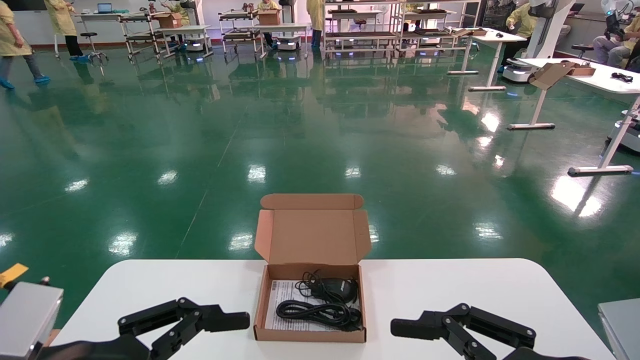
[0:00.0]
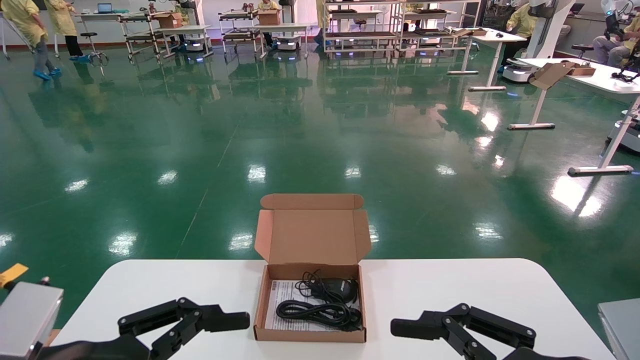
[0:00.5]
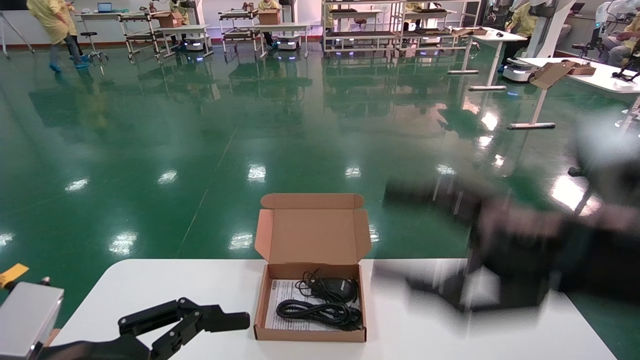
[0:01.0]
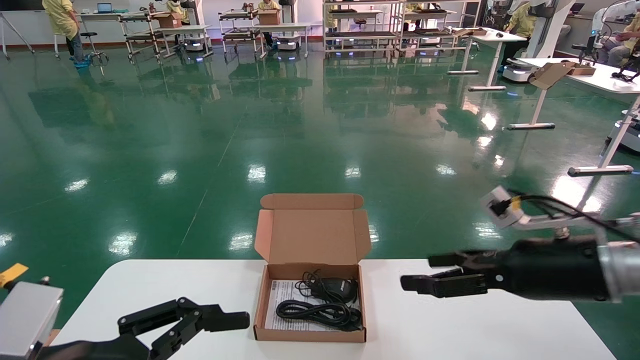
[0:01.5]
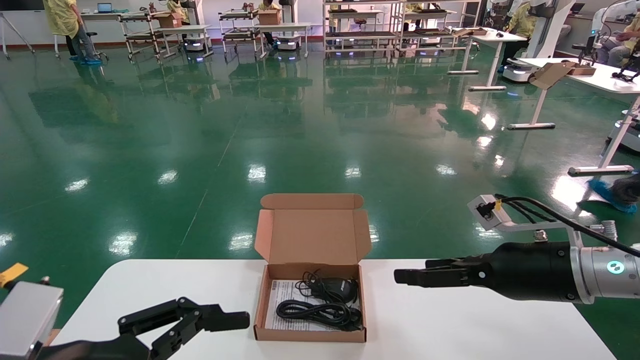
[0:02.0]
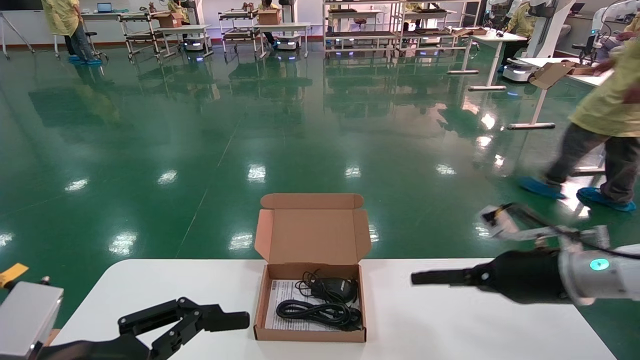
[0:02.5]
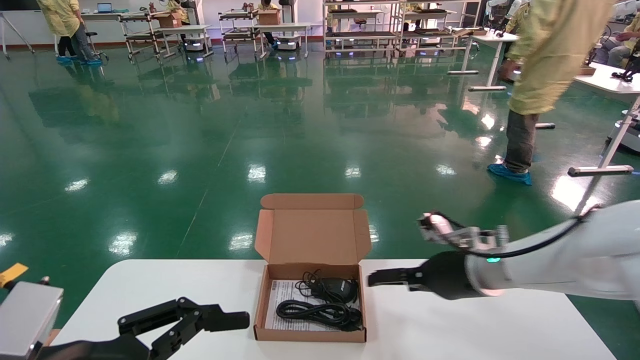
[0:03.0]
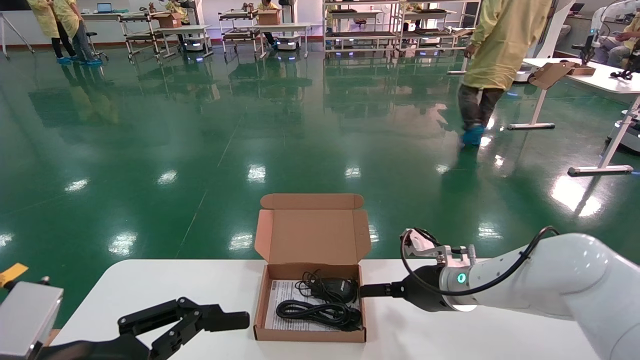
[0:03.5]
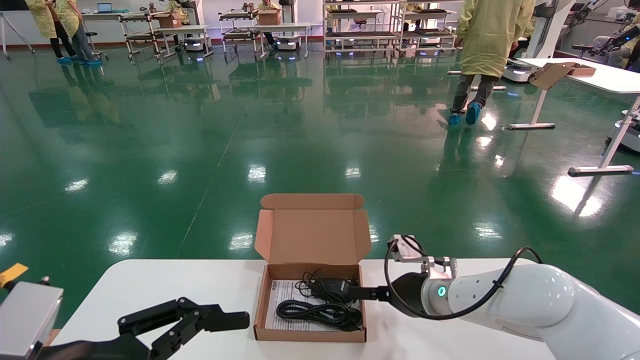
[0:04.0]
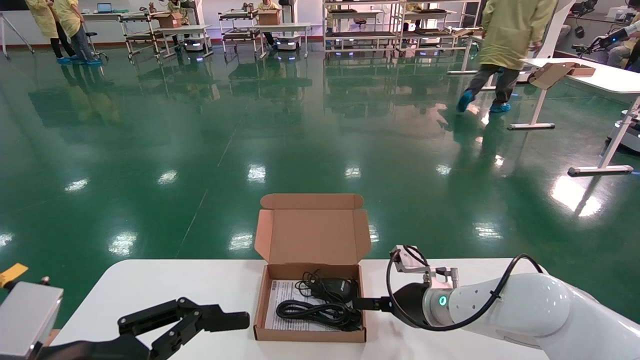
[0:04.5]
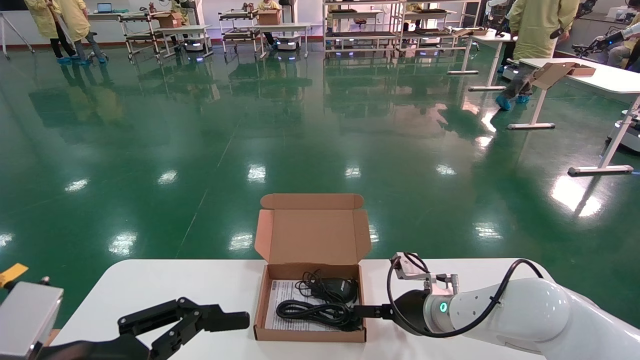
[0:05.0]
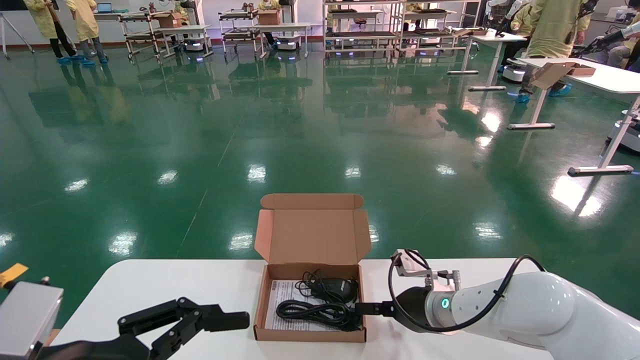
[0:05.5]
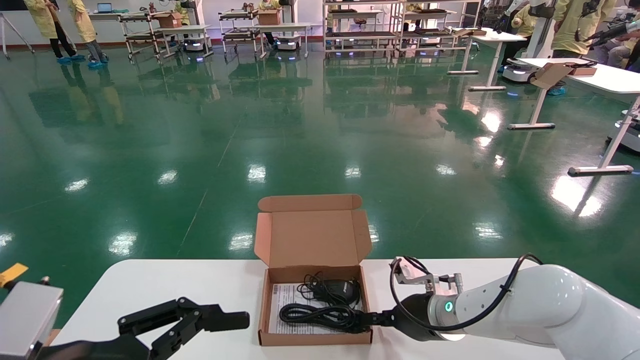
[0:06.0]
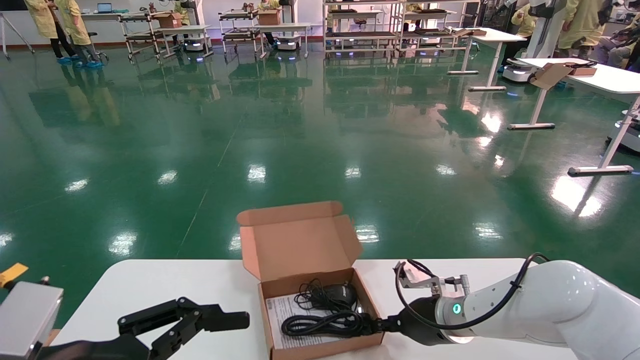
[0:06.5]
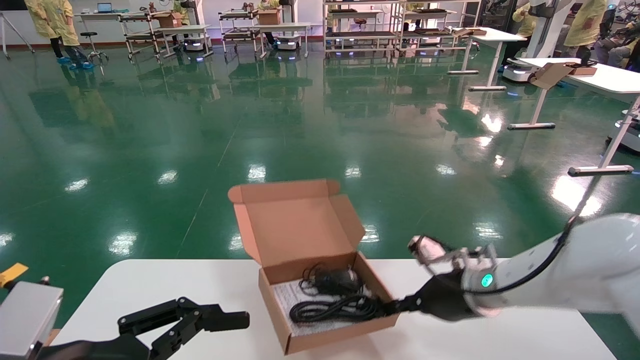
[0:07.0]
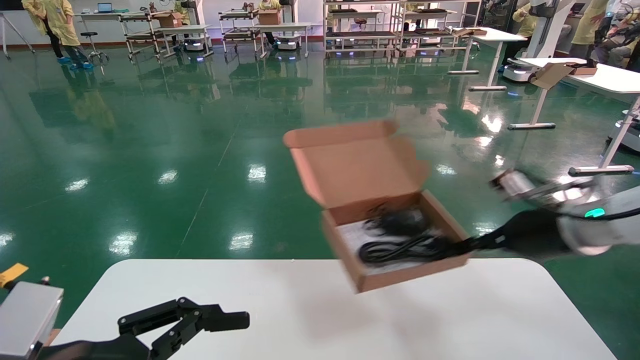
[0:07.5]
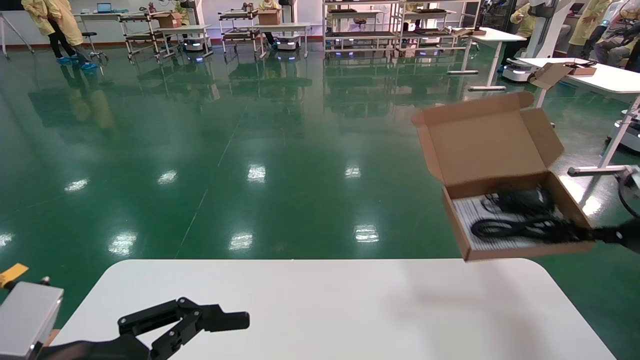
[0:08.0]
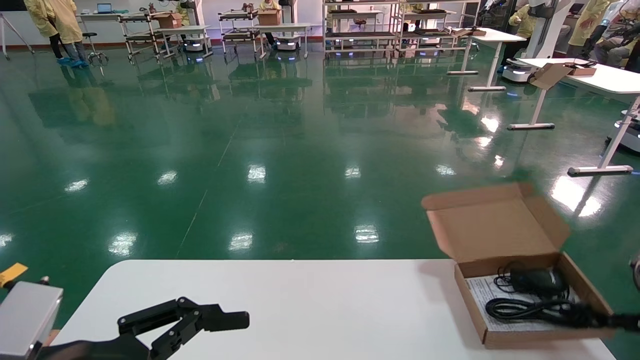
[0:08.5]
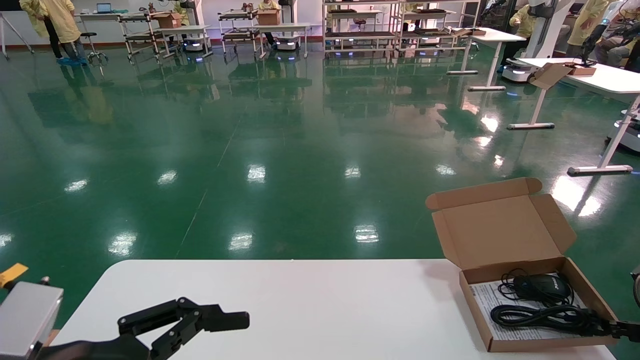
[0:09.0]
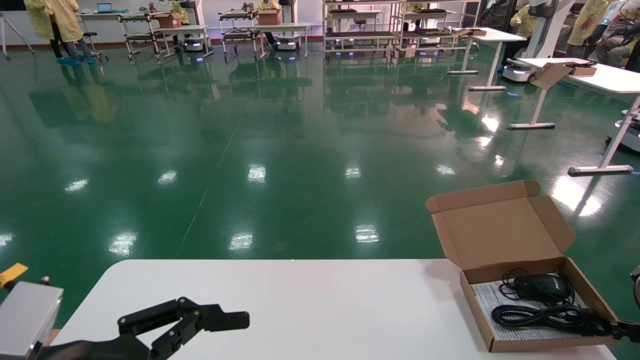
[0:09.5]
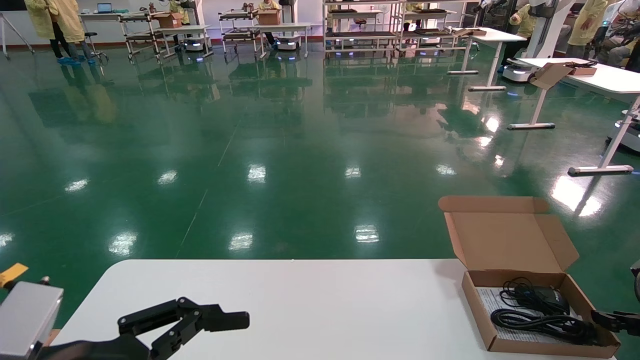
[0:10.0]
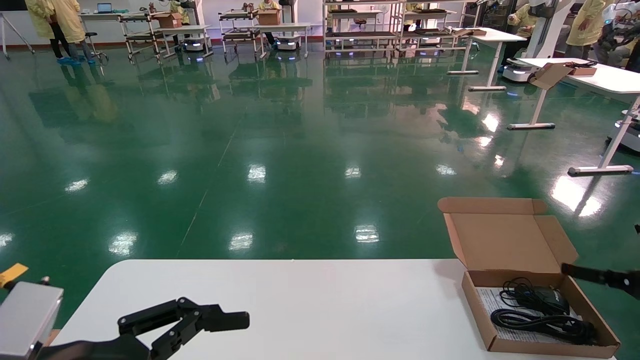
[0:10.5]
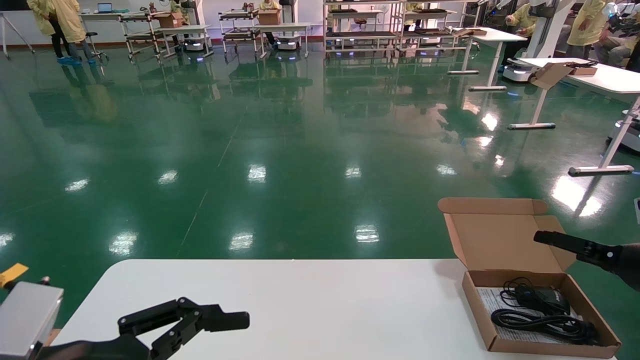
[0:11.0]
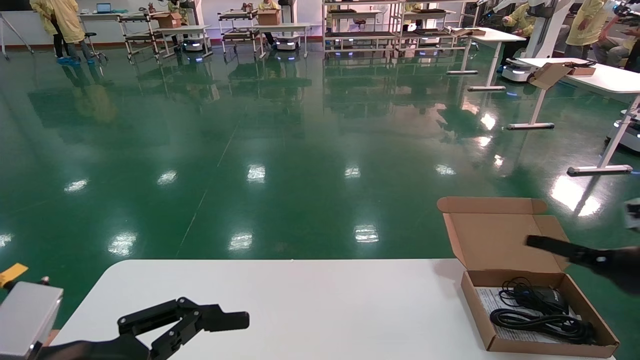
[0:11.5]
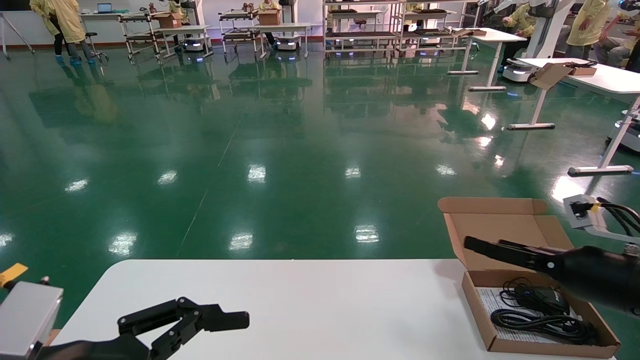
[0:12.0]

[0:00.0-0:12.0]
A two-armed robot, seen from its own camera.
Task of the whole recording: move the position of the storage box with accessories on the table.
Step, 0:01.0 to 0:06.5: Grab and pick up the open mouse box from the accessory packaging area.
Step, 0:07.0 to 0:09.5: Place the open mouse box onto the operation table.
0:00.0 to 0:02.0: The right gripper heads forward, covering roughly 20 cm.
0:02.0 to 0:04.0: The right gripper goes approximately 20 cm to the left, forward and downward.
0:04.0 to 0:06.0: The right gripper closes up.
0:06.0 to 0:08.0: The right gripper goes approximately 30 cm to the right and upward, and closes.
0:08.0 to 0:10.0: The right gripper heads downward and to the right, covering roughly 15 cm.
0:10.0 to 0:12.0: The right gripper travels to the left and upward by some 15 cm, and opens its fingers.

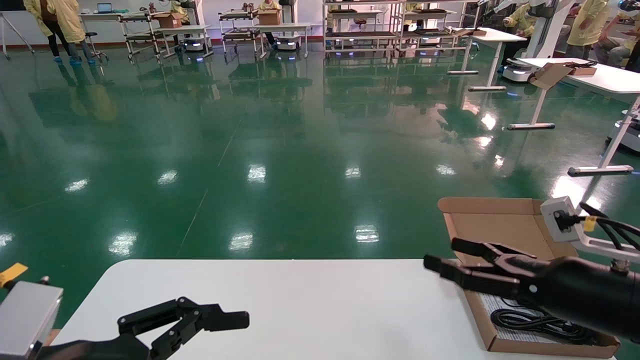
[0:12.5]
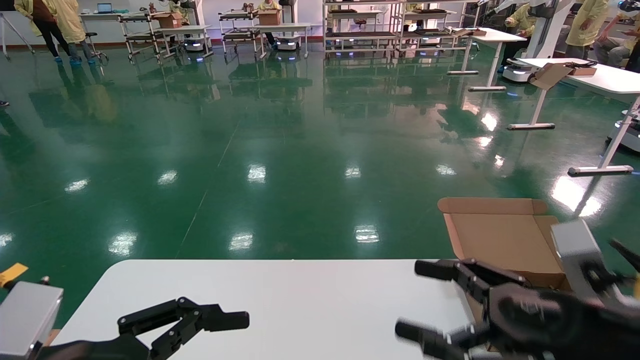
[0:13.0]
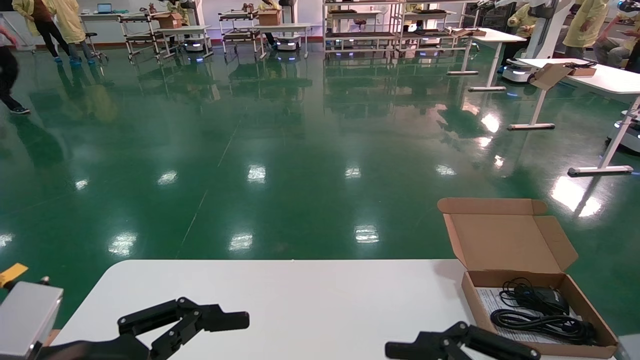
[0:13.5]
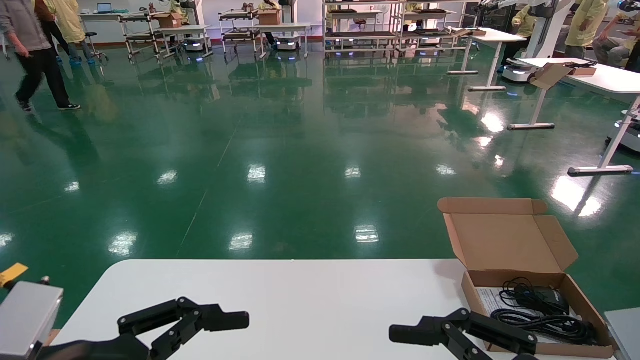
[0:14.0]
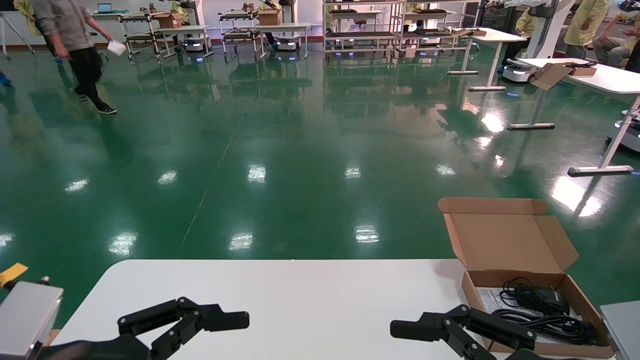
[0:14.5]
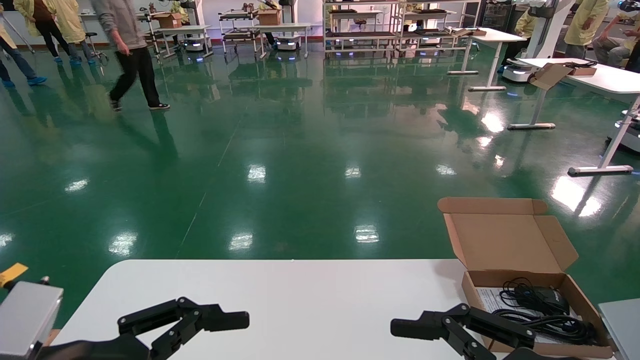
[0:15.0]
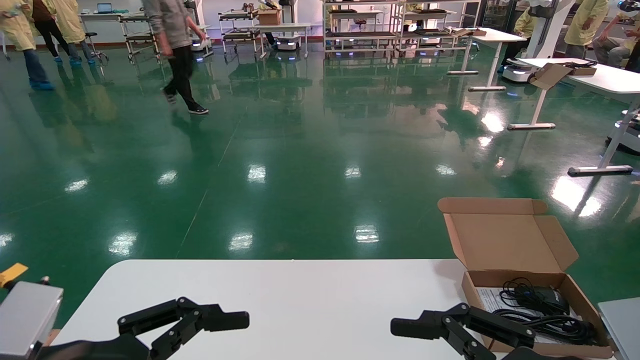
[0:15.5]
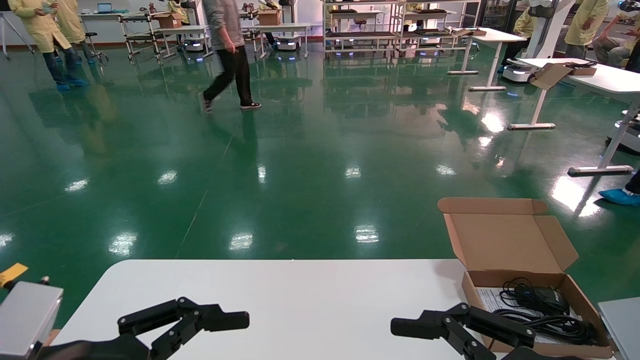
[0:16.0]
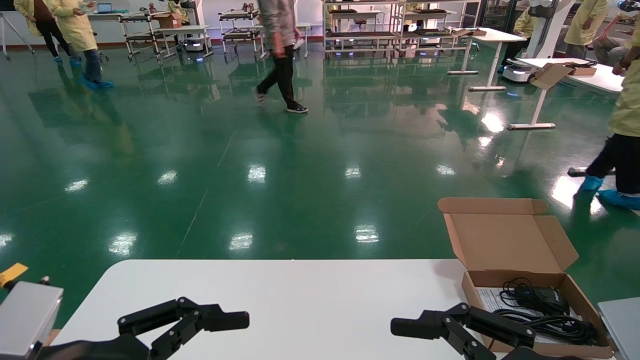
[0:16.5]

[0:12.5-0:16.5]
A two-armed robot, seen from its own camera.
Task of the whole recording: move the position of the storage box with accessories on the table.
0:12.5 to 0:14.5: The right gripper travels backward and to the left by about 15 cm.
0:14.5 to 0:16.5: Both grippers stay put.
